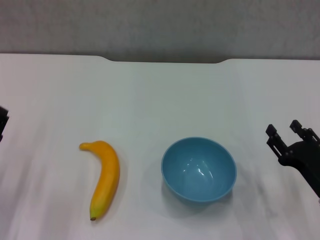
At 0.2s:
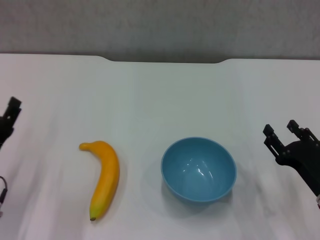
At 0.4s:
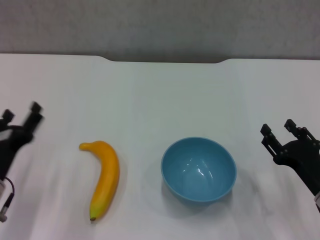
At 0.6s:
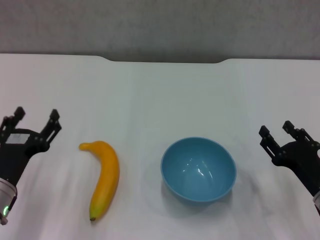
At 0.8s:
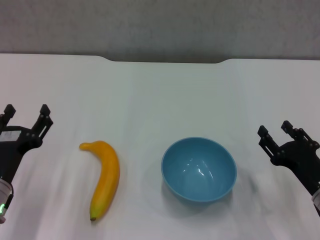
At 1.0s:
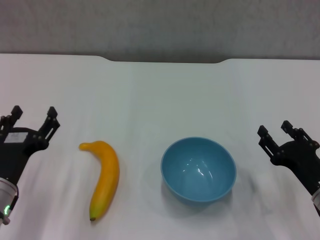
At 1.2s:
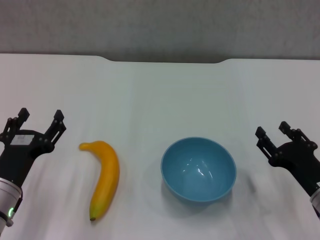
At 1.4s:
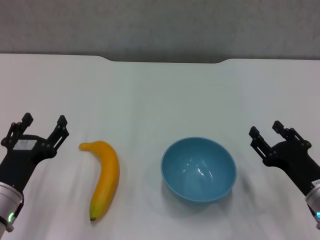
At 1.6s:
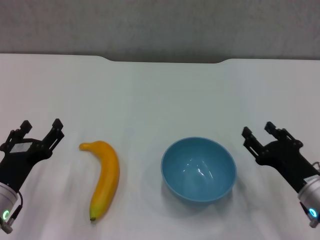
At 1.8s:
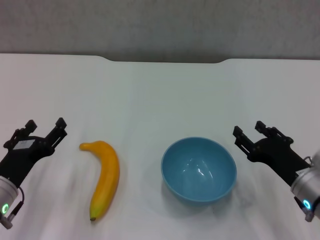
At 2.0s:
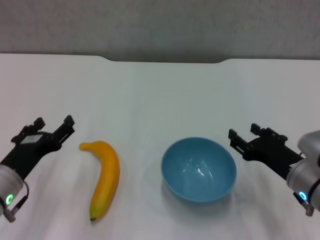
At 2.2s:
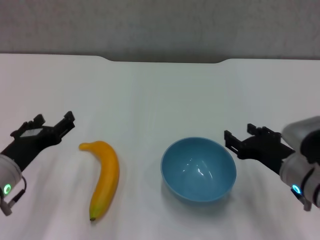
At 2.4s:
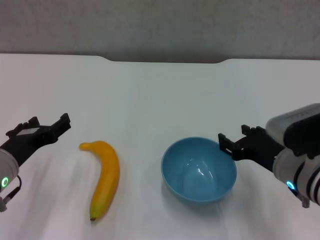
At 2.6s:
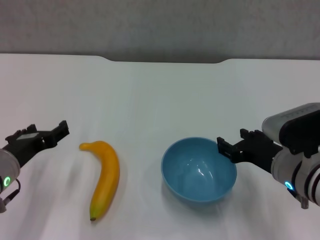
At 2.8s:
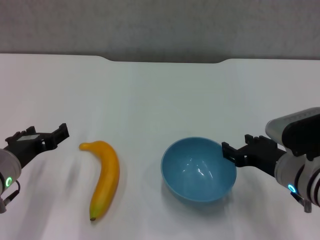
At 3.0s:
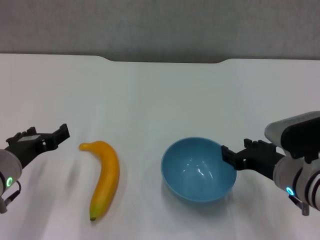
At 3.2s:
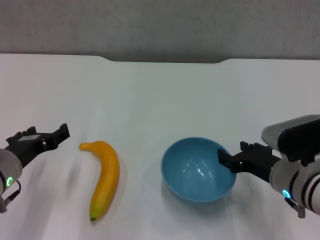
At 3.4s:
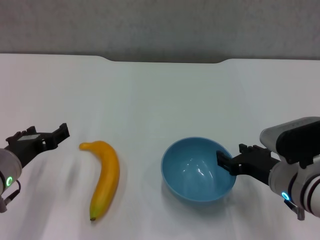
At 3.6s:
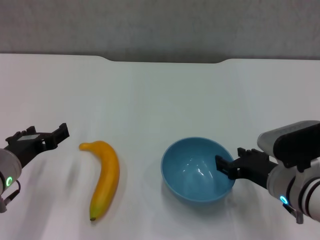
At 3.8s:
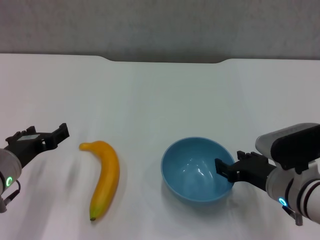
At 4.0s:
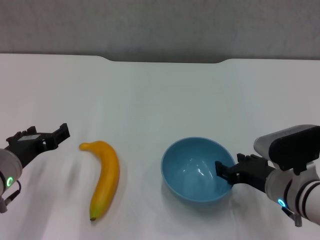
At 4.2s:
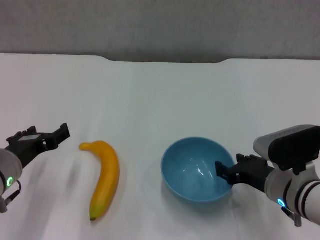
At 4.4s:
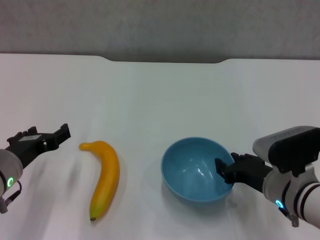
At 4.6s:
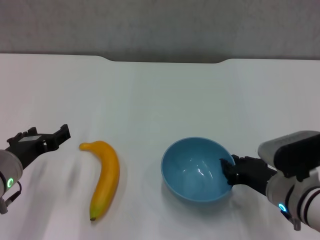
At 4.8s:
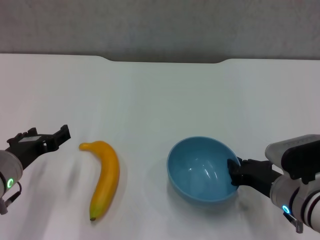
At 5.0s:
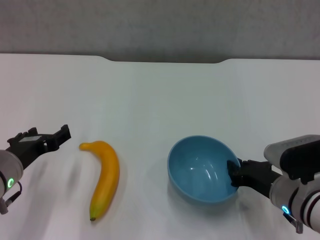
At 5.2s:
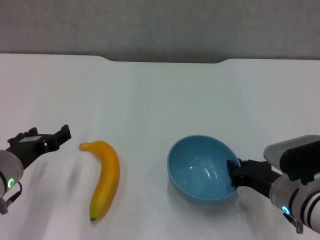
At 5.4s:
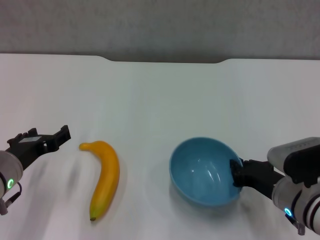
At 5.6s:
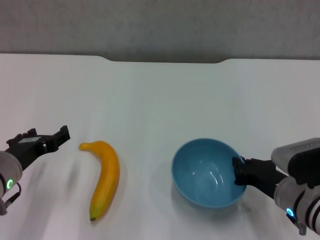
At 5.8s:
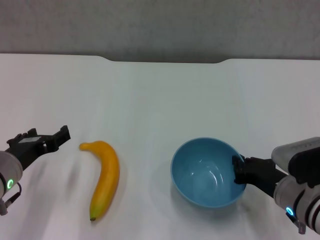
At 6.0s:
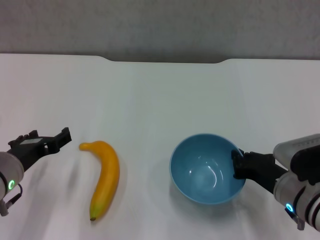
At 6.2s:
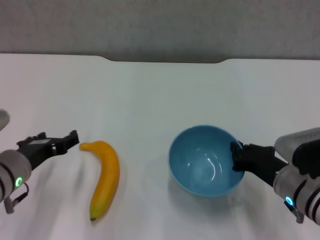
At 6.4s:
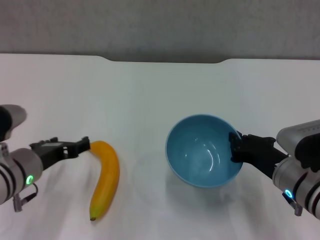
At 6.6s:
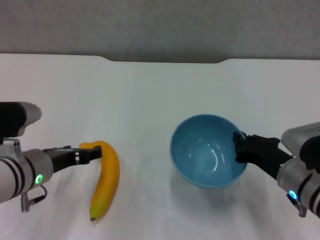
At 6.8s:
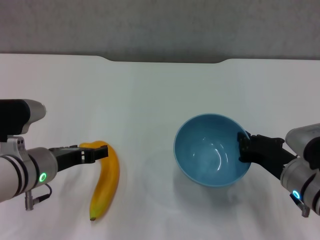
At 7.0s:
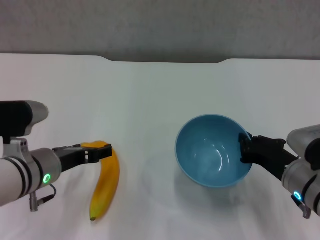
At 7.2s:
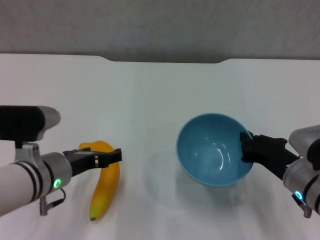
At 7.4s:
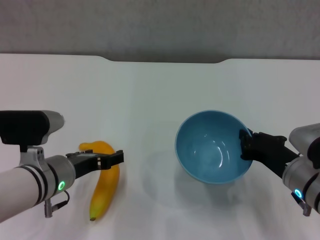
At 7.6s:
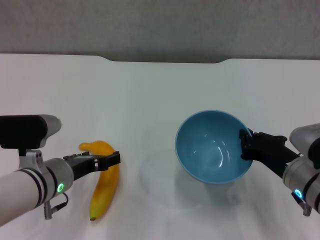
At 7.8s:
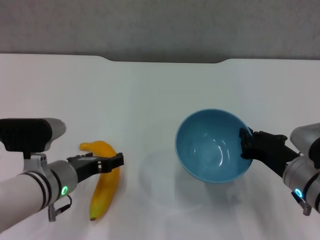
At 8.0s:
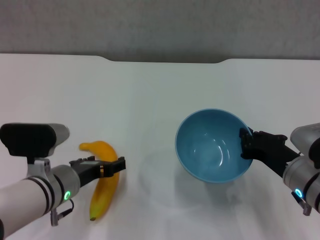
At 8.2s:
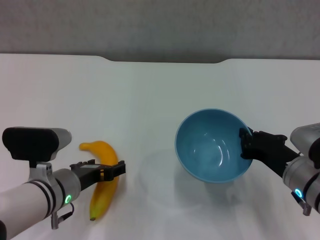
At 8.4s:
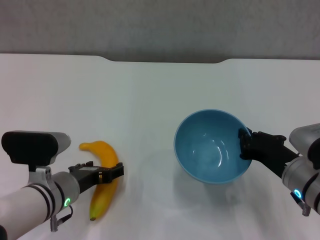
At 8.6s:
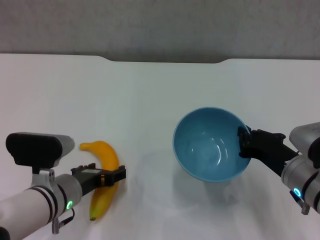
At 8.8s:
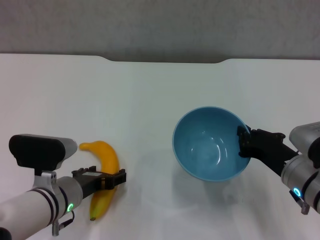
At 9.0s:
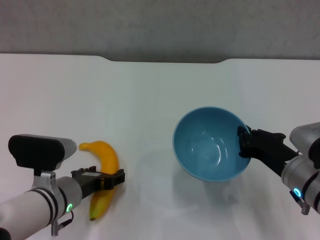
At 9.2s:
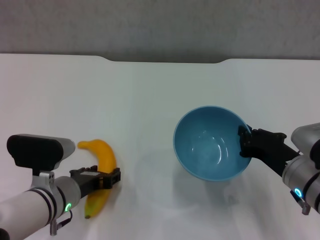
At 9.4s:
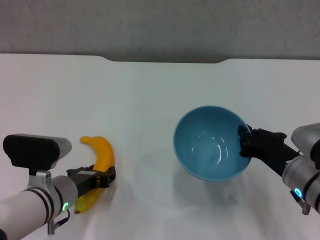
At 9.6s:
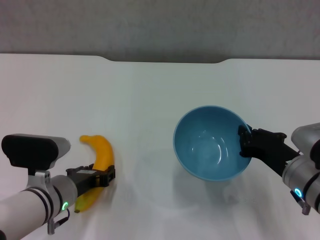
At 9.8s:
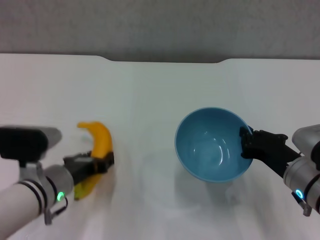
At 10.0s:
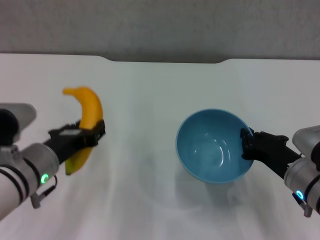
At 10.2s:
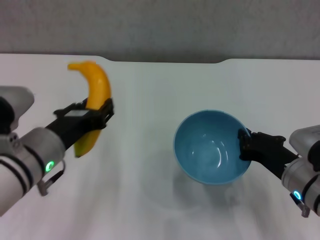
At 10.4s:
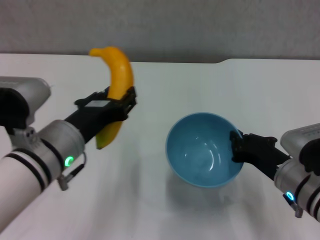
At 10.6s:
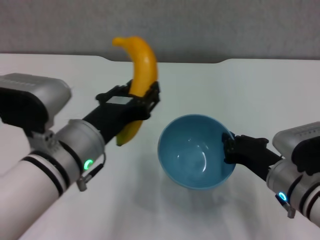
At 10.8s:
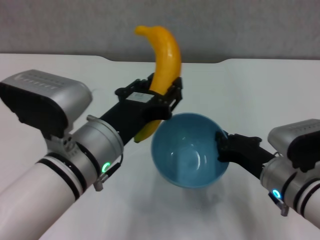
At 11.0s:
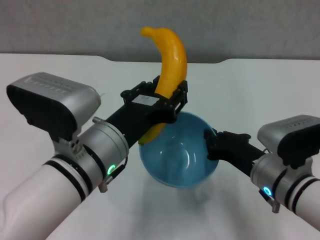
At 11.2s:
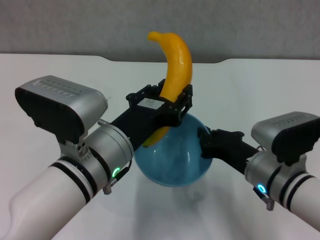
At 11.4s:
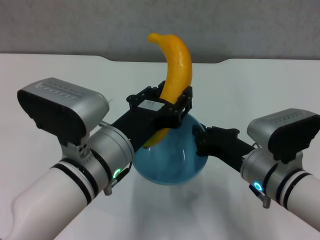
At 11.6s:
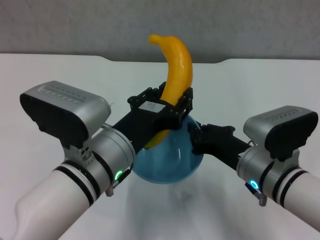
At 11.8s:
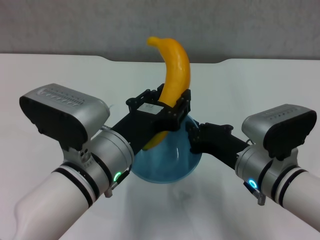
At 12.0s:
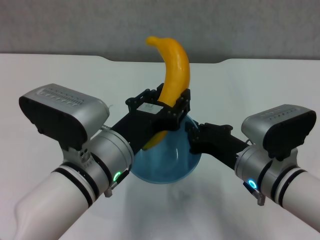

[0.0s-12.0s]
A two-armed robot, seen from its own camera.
Step, 0.0s to 4.8s: Grasp the blue bowl with right gripper.
Step, 5.0s to 6.6s: Lift the blue bowl with right gripper.
Step, 6.8s to 9.4s: Grasp the banana with left gripper.
1.6s to 3.0s: Both grippers travel together upward, about 5 cm.
3.0s to 4.4s: The grippers stay close to where they were, moving slightly.
4.4s to 6.0s: The right gripper closes its fingers.
6.0s to 7.6s: The left gripper goes approximately 5 cm to the right.
7.6s to 9.0s: The grippers make only small movements.
9.0s to 10.4s: The left gripper travels upward by approximately 10 cm, and closes up.
10.4s to 12.0s: The right gripper moves to the left, about 5 cm. Meanwhile the left gripper shifts roughly 5 cm to the right.

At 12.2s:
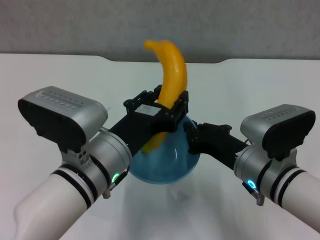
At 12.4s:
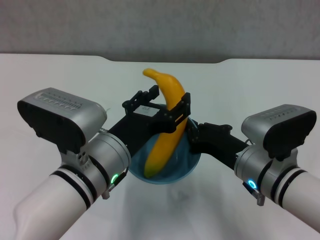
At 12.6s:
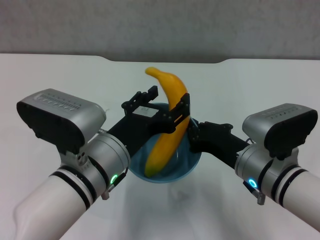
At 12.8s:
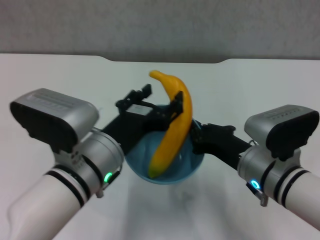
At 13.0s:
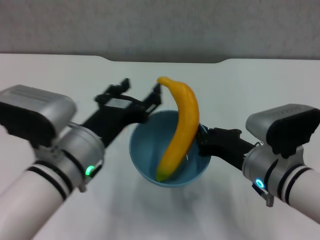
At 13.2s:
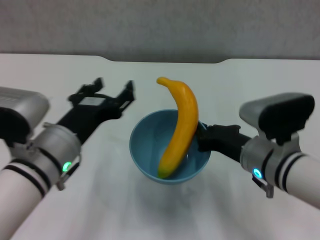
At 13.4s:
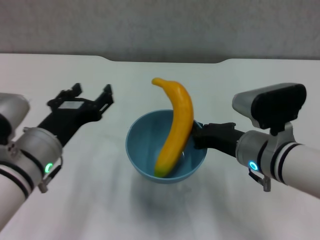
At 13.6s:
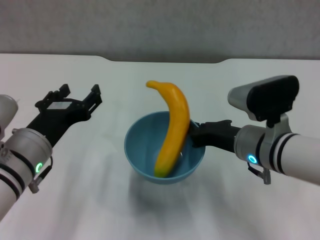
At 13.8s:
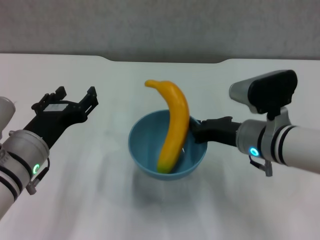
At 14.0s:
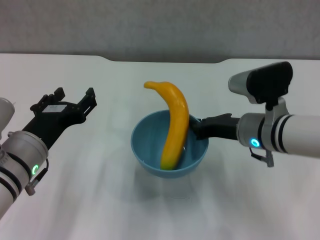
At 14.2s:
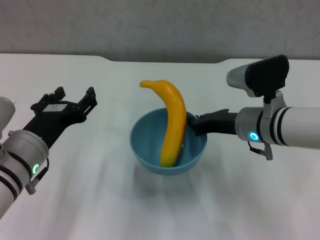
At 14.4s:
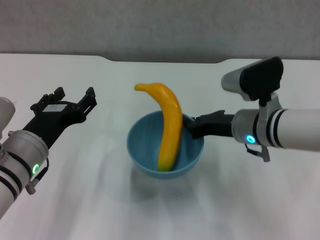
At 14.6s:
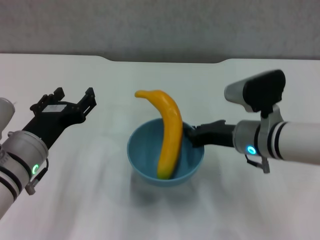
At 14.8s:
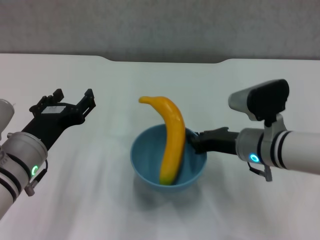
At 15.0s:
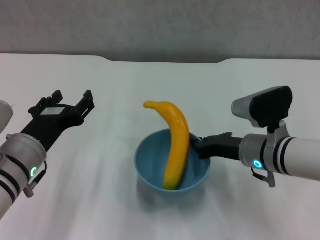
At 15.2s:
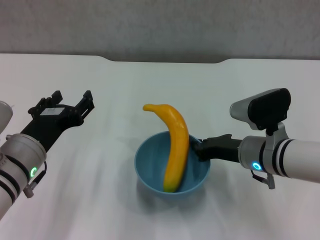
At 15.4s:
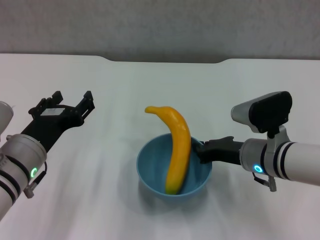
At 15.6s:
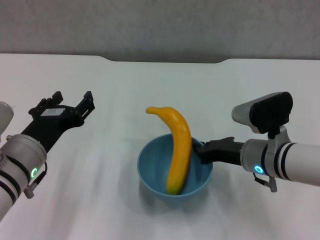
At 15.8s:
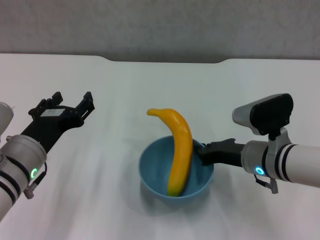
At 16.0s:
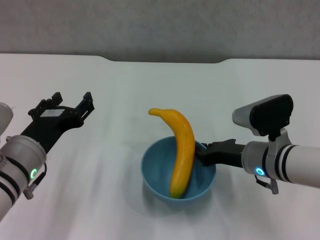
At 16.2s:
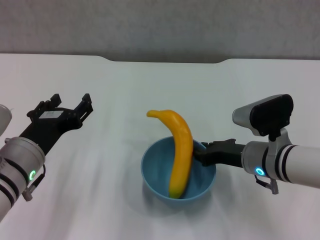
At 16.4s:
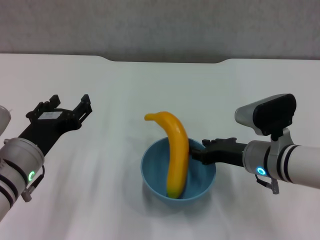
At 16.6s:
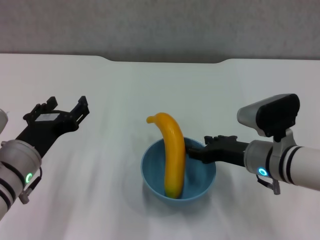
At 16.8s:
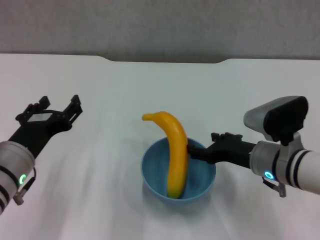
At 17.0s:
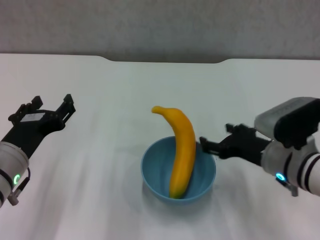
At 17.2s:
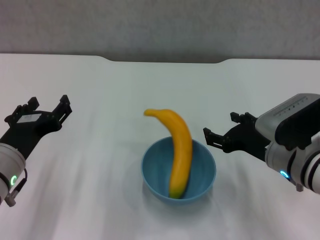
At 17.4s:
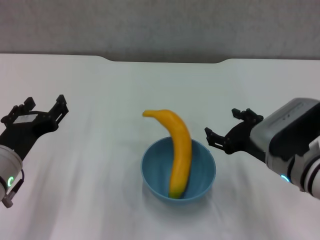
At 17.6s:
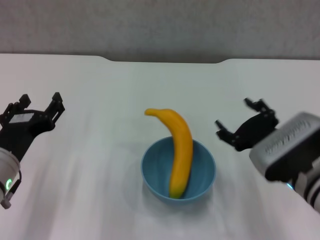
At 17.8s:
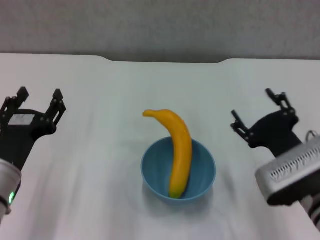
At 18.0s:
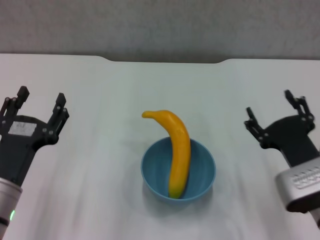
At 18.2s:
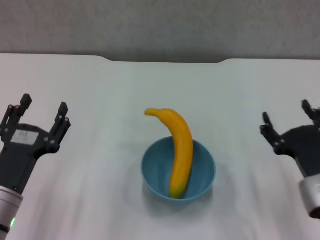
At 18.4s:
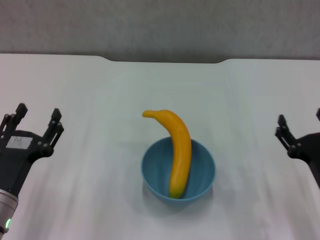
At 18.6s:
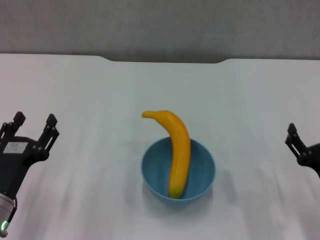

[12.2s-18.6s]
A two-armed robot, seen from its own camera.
Step, 13.0s to 17.0s: Place the bowl on the table with right gripper.
12.2s to 13.8s: The right gripper goes approximately 5 cm forward. Meanwhile the left gripper shifts roughly 10 cm to the left.
15.4s to 17.0s: The right gripper opens its fingers.
17.0s to 18.6s: The right gripper is displaced backward and to the right by about 10 cm. Meanwhile the left gripper travels downward by some 5 cm.
